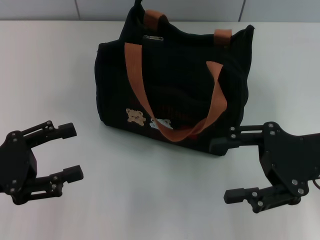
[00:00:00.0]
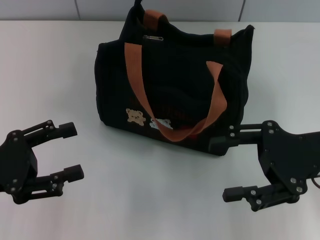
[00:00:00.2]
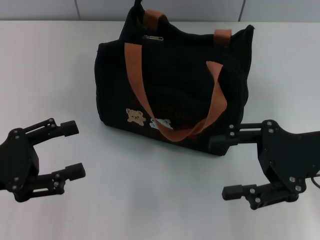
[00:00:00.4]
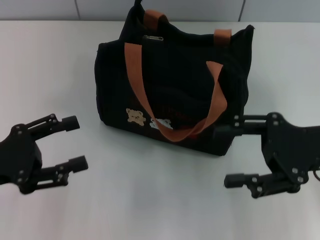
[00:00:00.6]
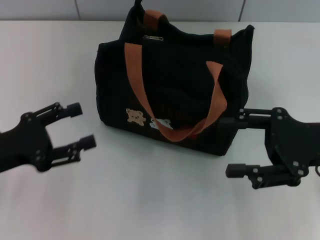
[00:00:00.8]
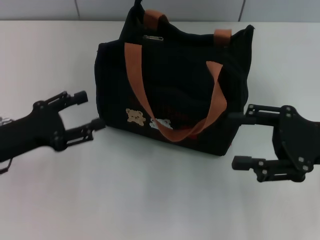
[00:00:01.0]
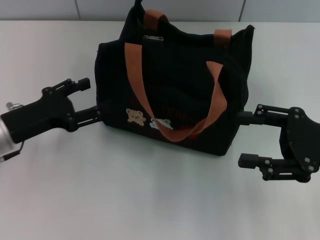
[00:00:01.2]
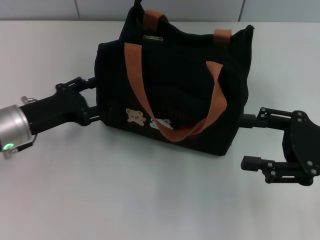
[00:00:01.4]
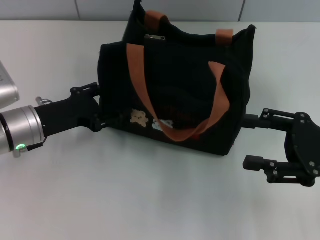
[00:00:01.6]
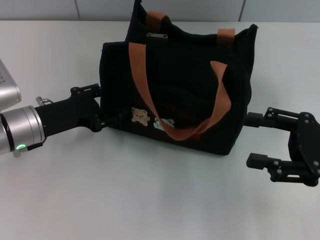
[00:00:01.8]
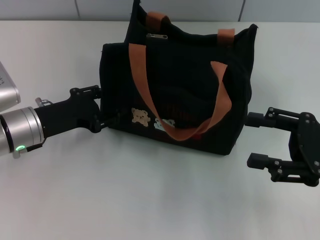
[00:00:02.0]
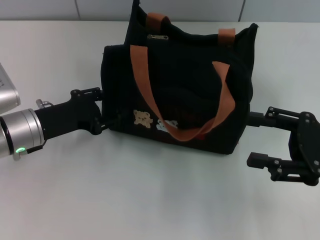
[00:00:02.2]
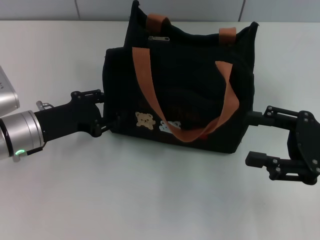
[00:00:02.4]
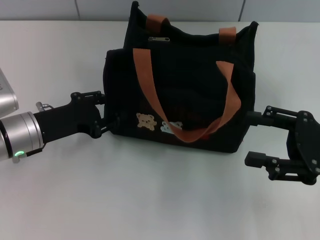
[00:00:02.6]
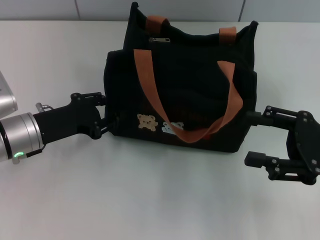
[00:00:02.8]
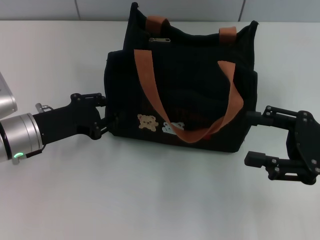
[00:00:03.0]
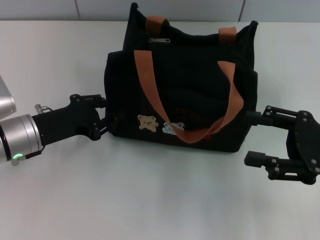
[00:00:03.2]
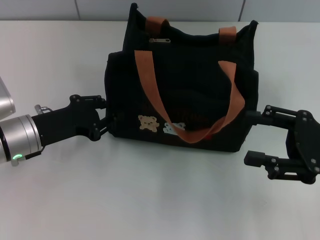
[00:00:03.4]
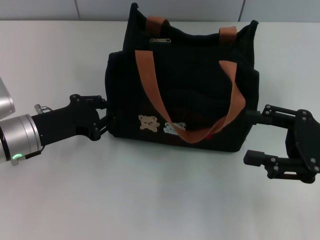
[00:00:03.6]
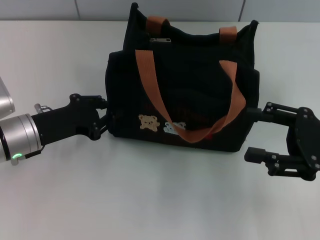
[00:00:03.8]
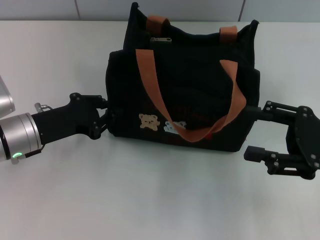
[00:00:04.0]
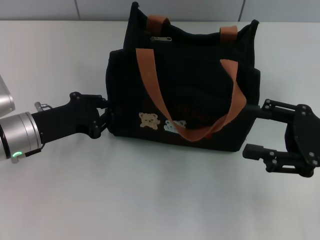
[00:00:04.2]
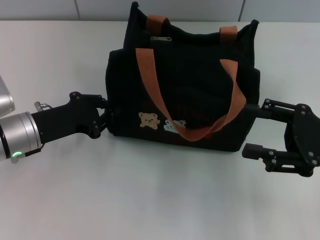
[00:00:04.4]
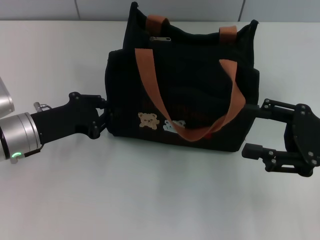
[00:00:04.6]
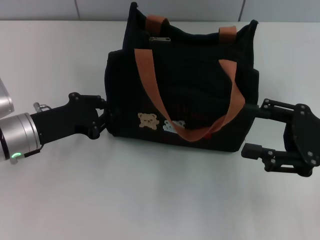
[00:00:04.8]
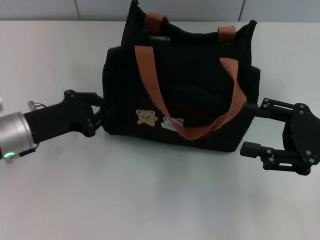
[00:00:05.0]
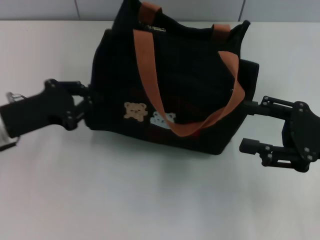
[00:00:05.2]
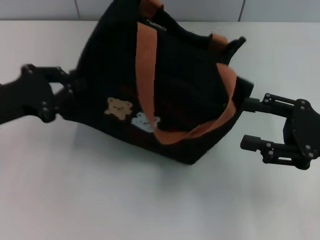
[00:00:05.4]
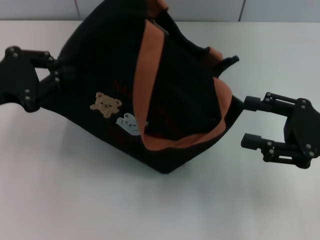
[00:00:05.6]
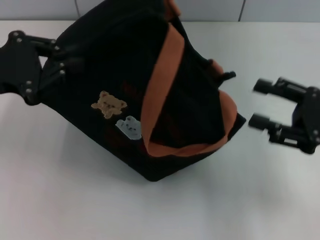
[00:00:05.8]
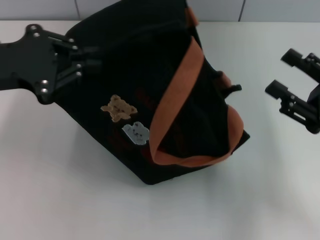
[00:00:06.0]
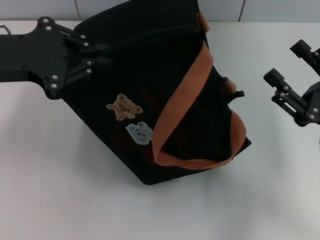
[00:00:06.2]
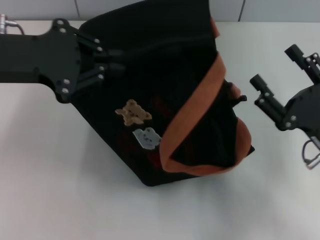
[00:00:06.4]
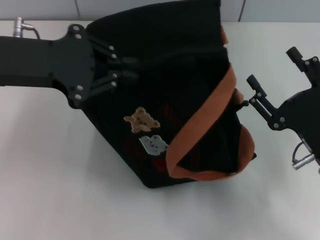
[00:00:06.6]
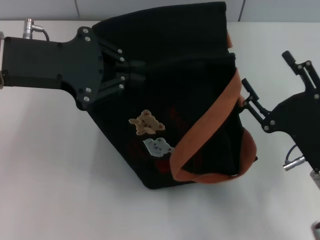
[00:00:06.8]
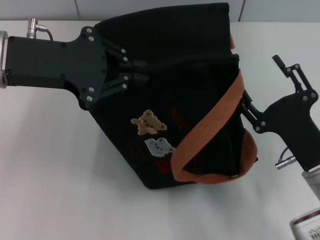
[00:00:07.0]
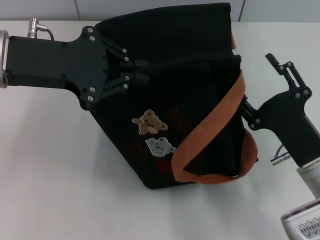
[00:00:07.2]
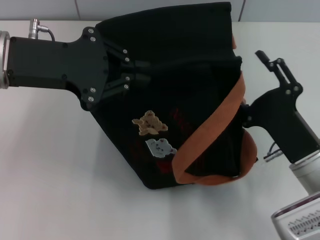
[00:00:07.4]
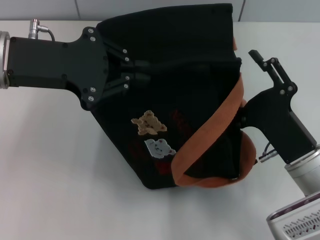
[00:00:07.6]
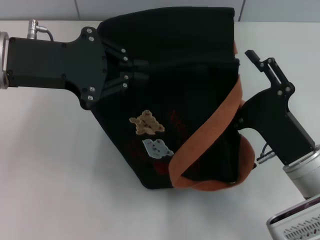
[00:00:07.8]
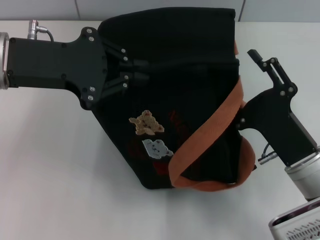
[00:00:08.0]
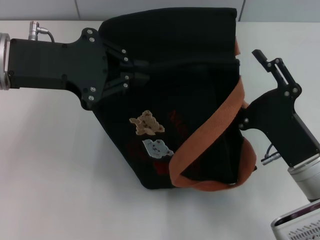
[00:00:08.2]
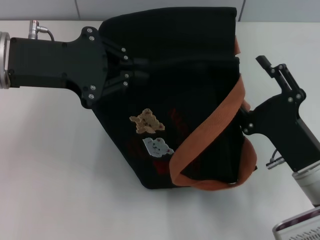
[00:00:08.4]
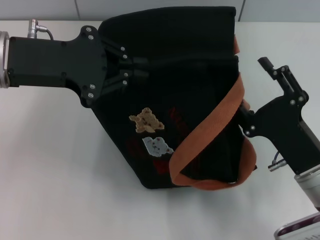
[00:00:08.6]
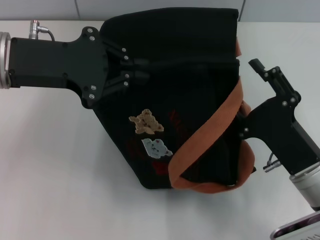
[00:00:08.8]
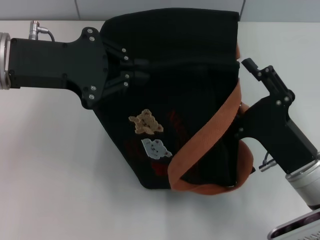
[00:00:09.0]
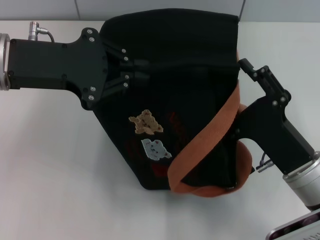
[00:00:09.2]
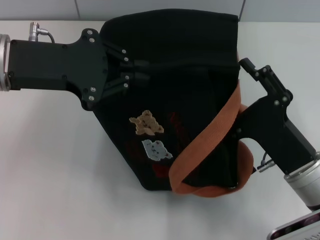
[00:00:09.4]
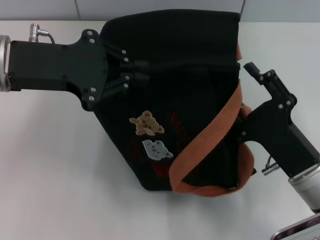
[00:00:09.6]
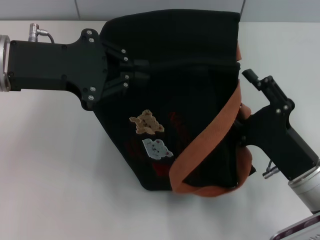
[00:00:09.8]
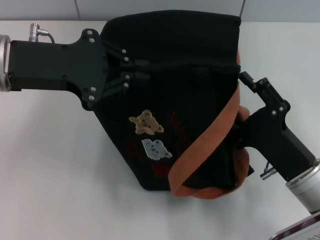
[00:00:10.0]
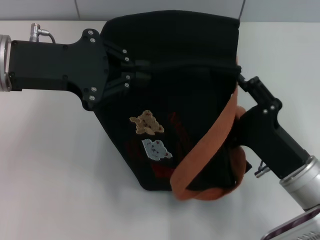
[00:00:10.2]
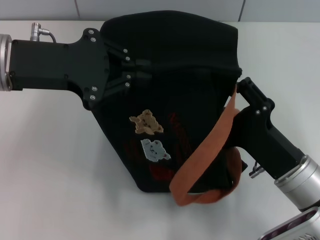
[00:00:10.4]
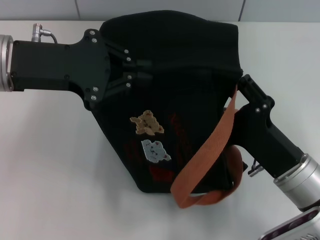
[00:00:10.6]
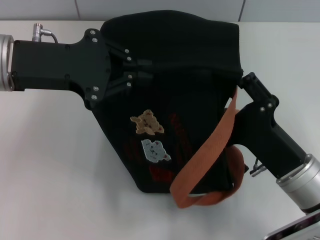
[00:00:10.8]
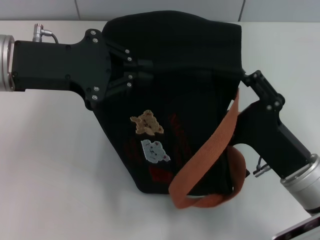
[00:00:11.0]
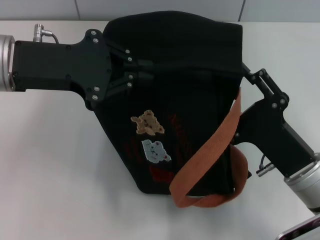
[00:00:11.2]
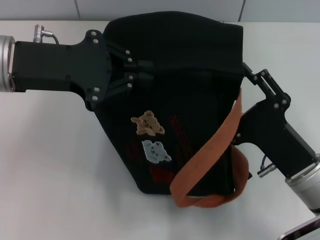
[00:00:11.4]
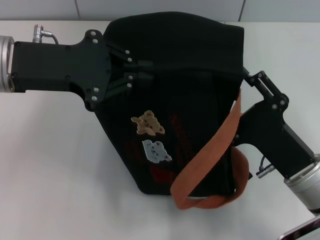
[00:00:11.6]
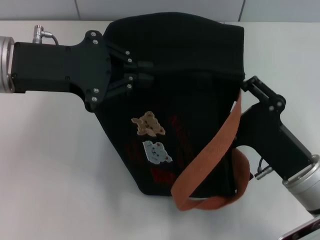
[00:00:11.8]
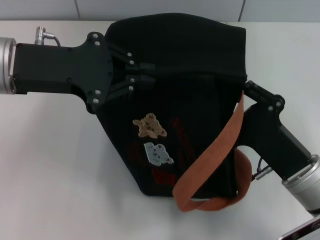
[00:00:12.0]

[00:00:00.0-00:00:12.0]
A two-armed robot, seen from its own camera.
00:00:00.0 to 00:00:01.6: The left gripper shifts about 15 cm forward and to the right.
00:00:01.6 to 00:00:03.0: The left gripper closes.
00:00:03.0 to 00:00:04.4: Both grippers stay about where they are.
00:00:04.4 to 00:00:06.0: The left gripper shifts some 15 cm upward.
00:00:06.0 to 00:00:07.6: The right gripper is displaced to the left by some 10 cm, while the left gripper is displaced to the right by roughly 5 cm.
00:00:07.6 to 00:00:12.0: The grippers move only a little.

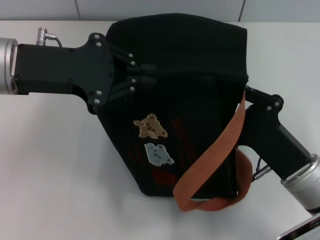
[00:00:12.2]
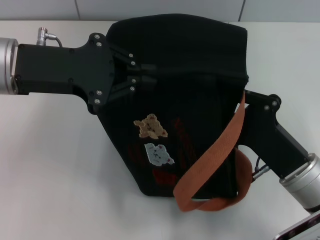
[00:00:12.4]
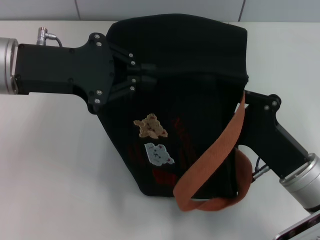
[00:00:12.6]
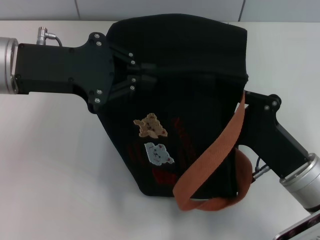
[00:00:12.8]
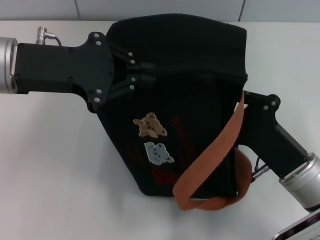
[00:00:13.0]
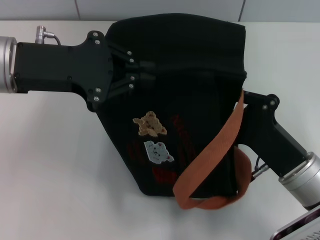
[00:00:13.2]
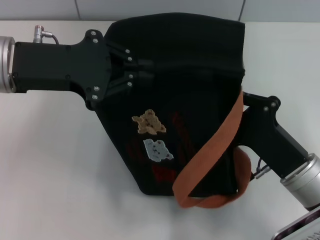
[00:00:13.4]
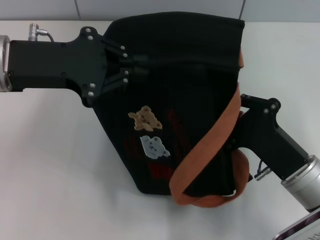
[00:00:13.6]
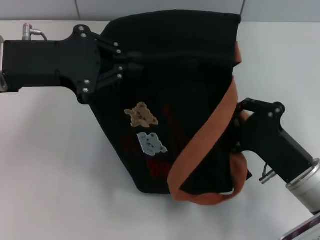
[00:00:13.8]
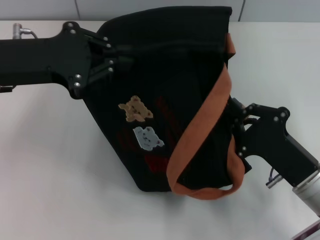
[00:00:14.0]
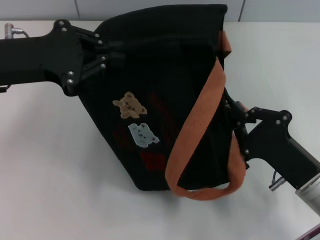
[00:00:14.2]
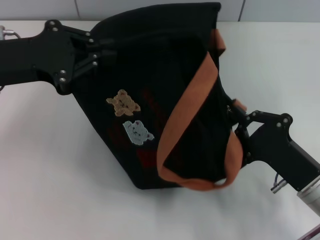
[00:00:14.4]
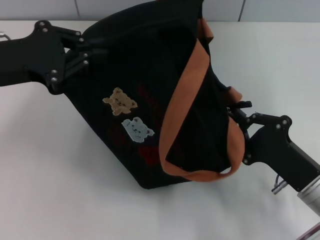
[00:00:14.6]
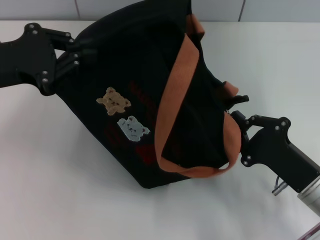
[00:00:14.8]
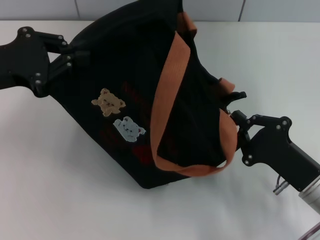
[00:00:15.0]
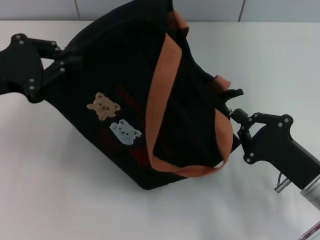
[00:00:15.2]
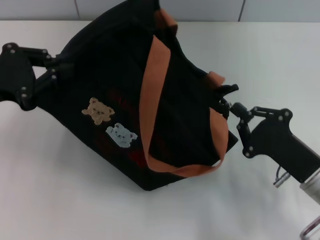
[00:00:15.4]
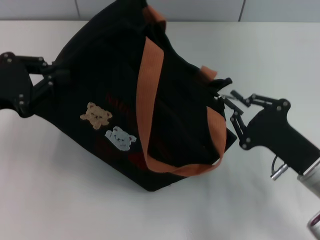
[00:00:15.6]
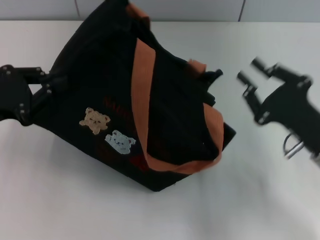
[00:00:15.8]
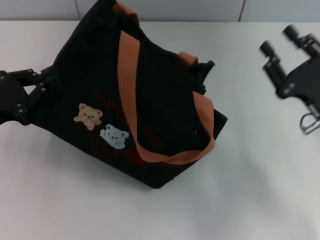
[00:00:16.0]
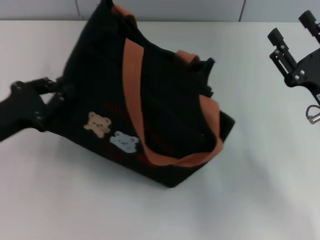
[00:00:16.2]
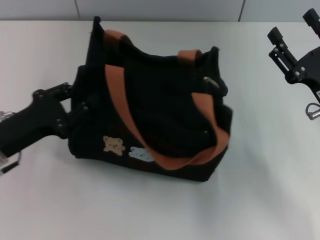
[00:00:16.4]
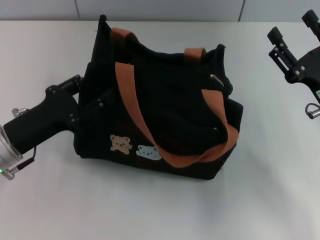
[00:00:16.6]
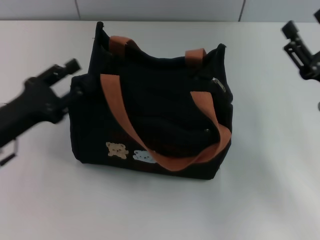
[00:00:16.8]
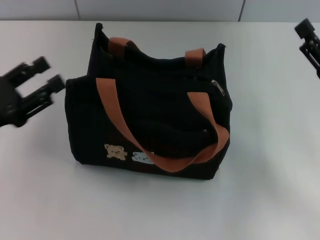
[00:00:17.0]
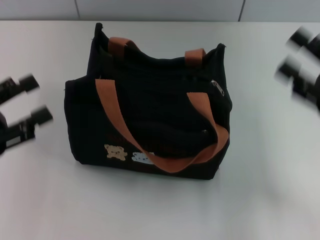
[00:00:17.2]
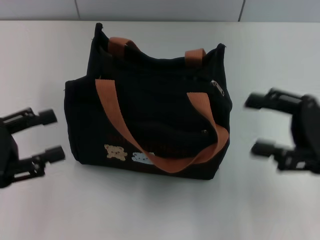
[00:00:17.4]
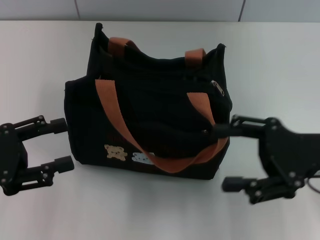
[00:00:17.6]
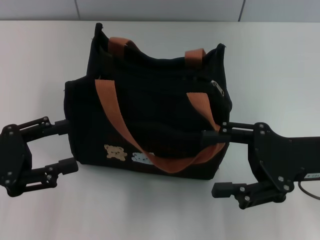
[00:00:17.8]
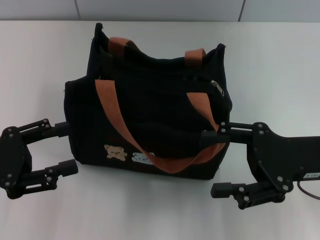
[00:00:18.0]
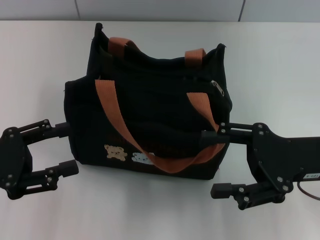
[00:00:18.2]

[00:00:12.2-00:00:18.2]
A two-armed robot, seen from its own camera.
Step, 00:00:12.2 to 00:00:15.6: Pull open the zipper with your right hand.
Step, 00:00:15.8 to 00:00:16.6: Grab the bag with your left hand.
00:00:12.2 to 00:00:13.8: The right gripper closes its fingers.
00:00:13.8 to 00:00:15.2: The left gripper is displaced to the left by approximately 5 cm.
00:00:15.2 to 00:00:16.6: The right gripper is displaced forward by roughly 5 cm, and opens up. The left gripper travels downward by about 10 cm.
00:00:16.6 to 00:00:18.2: The left gripper travels to the left by approximately 5 cm, and opens its fingers.
